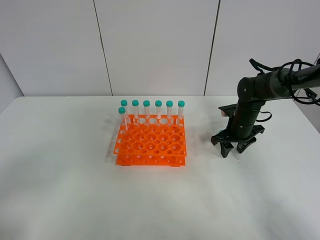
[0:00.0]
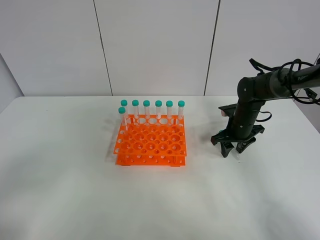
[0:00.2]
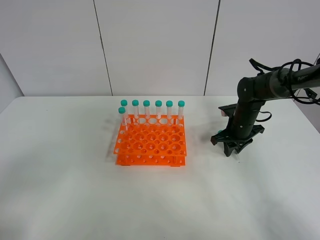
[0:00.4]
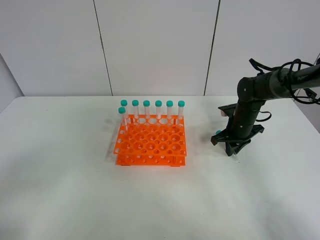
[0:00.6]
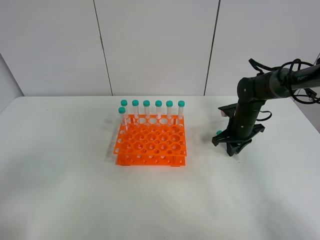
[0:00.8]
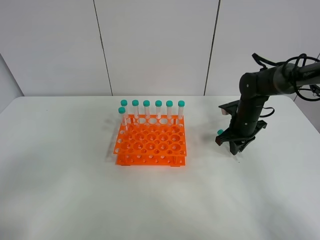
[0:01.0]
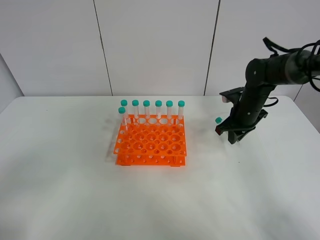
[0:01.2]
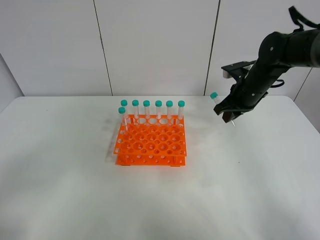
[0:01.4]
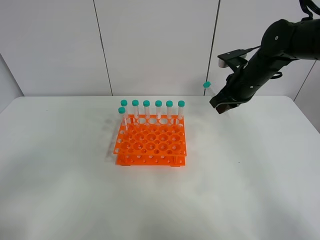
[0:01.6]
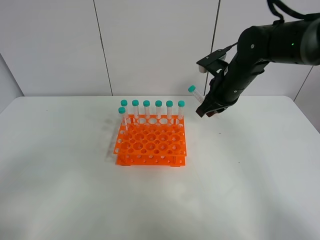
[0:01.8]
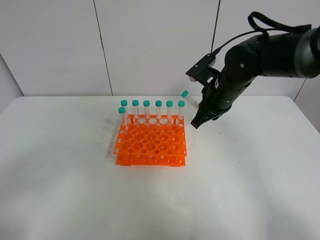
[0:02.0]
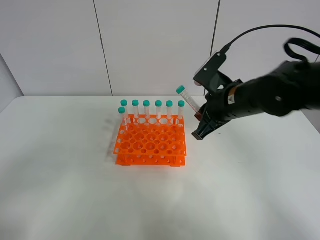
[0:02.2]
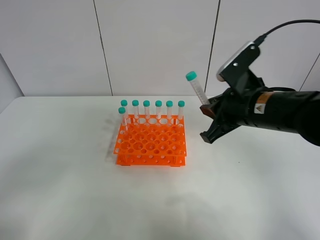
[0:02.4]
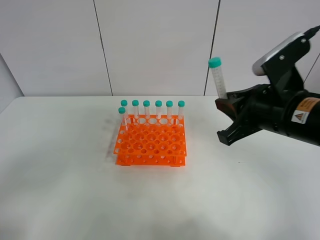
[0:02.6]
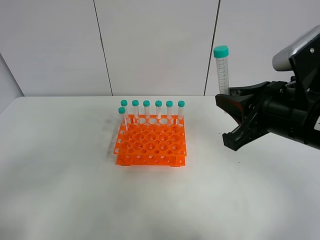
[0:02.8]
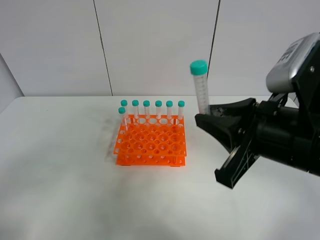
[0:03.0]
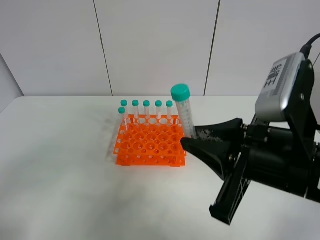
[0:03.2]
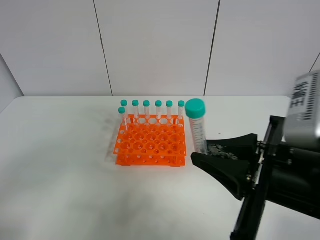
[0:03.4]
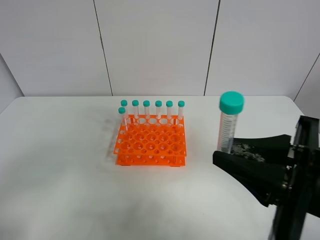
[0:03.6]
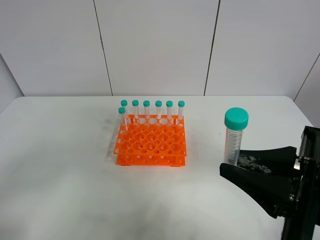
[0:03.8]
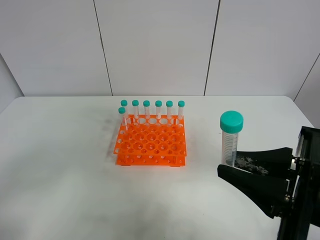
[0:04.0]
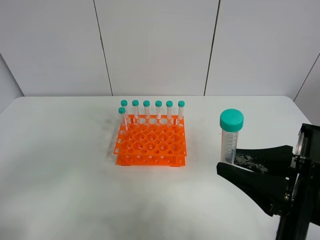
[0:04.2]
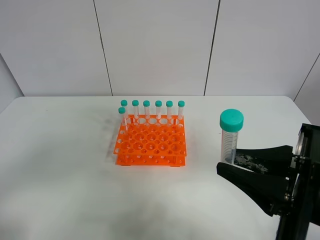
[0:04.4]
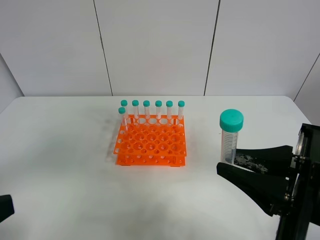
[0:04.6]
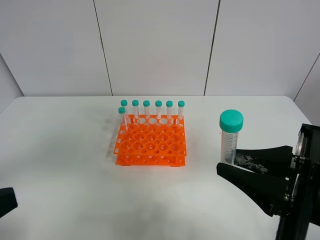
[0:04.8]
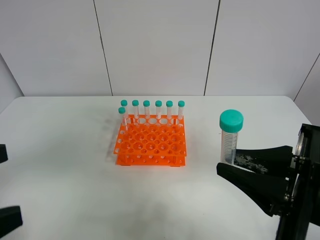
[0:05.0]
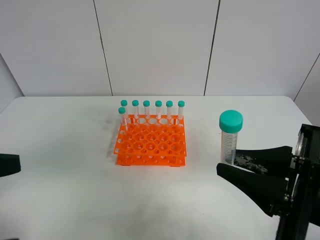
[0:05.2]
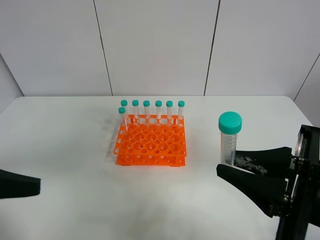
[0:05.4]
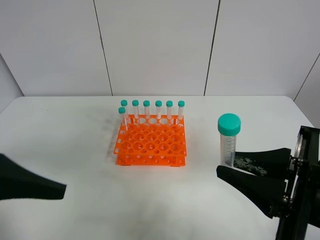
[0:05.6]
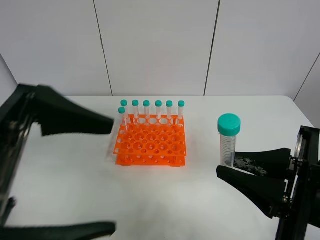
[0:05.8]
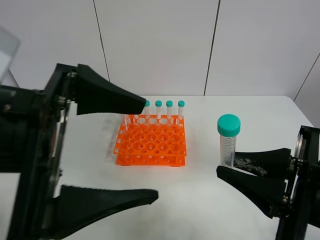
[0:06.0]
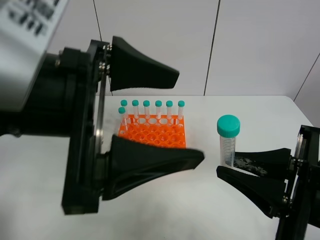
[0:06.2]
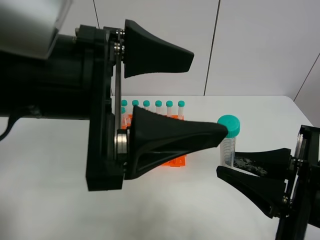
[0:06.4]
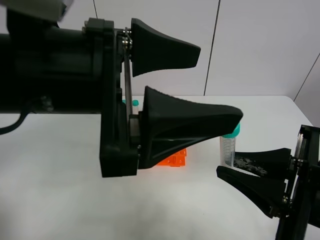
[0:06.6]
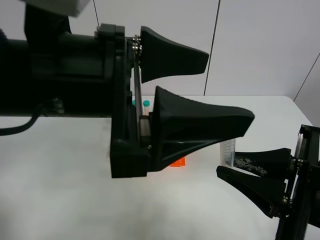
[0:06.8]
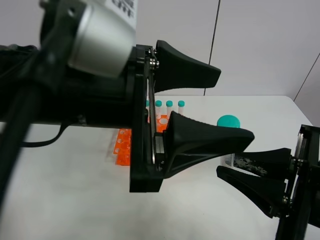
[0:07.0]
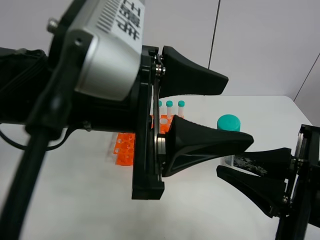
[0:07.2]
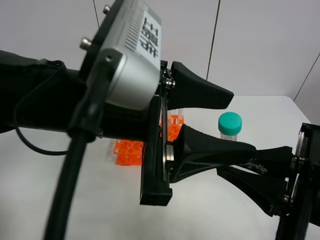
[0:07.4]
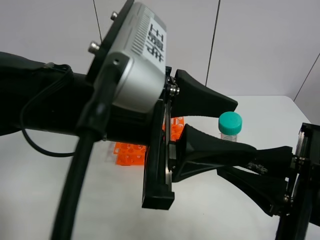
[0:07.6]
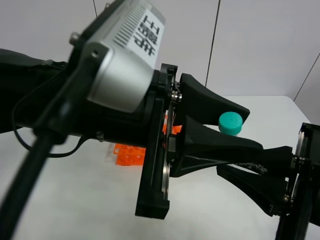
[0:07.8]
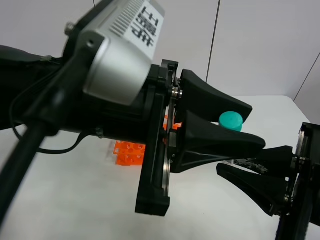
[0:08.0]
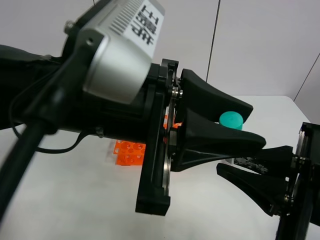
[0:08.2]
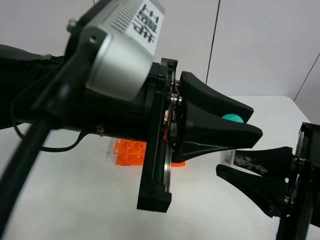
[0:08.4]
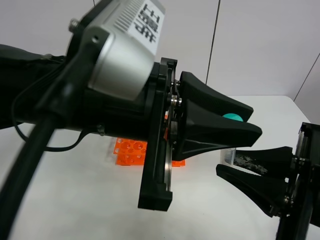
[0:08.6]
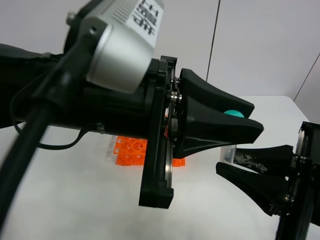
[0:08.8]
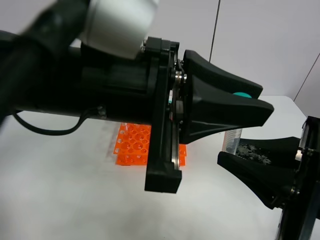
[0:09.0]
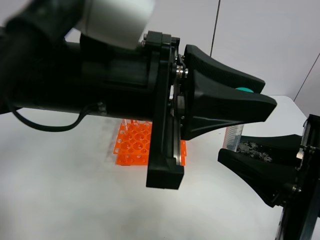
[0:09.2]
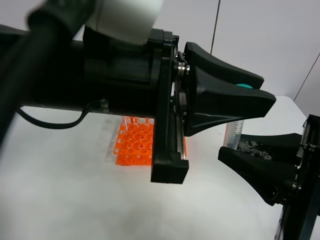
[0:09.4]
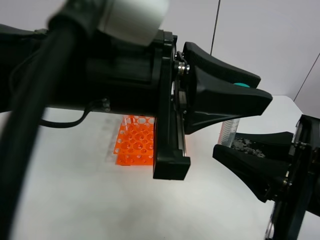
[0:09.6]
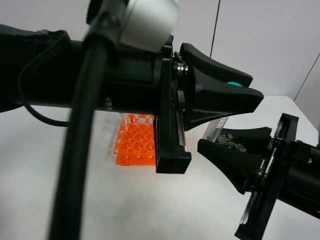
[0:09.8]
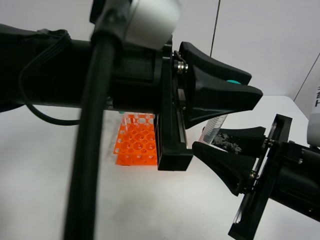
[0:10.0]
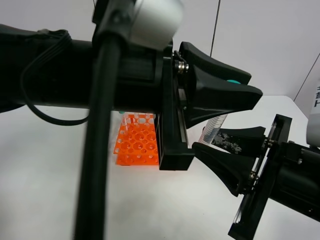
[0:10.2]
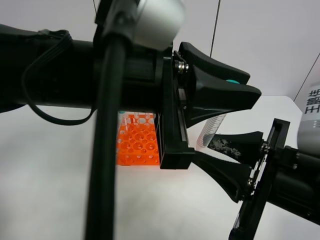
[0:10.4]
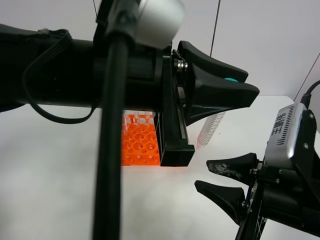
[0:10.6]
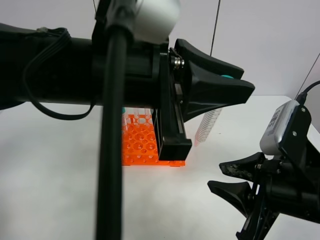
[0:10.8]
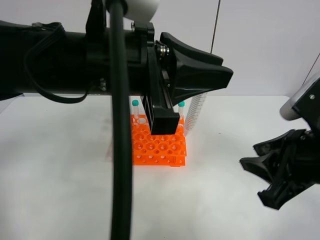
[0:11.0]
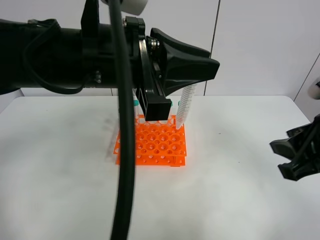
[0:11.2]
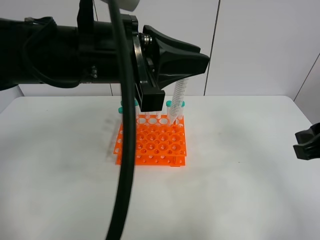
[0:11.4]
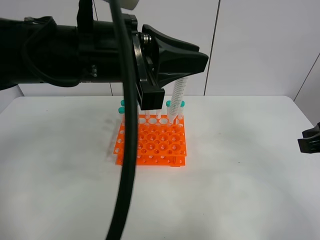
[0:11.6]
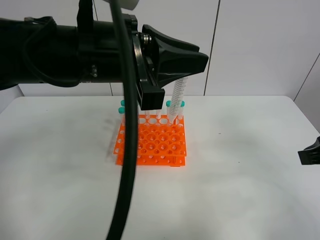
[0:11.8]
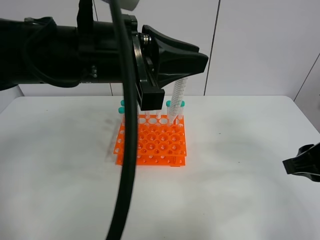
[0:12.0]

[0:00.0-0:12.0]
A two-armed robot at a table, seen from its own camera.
Task of the whole recording: Put the test tube on the table back onto the test tube rack.
Step, 0:01.4 to 0:10.8: Move the test tube from the right gripper to the left gripper.
0:00.0 to 0:01.6: The right gripper shifts about 15 cm upward, and closes up.
0:01.6 to 0:03.0: The right gripper goes roughly 25 cm backward.
0:03.0 to 0:04.4: The right gripper shifts approximately 5 cm backward.
0:04.4 to 0:06.0: The left gripper is displaced to the right and forward by some 15 cm.
0:06.0 to 0:07.6: The left gripper heads to the right and forward, covering roughly 10 cm, and closes up.
0:07.6 to 0:09.0: The left gripper closes.
0:09.0 to 0:10.4: The right gripper opens.
0:10.4 to 0:12.0: The right gripper moves to the right and forward, approximately 10 cm. Meanwhile the left gripper moves approximately 5 cm.

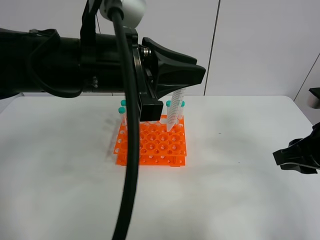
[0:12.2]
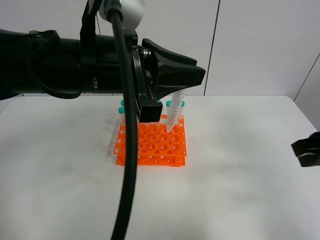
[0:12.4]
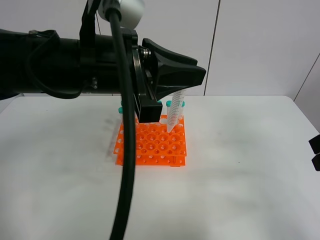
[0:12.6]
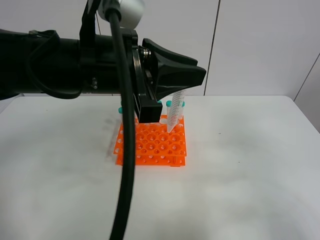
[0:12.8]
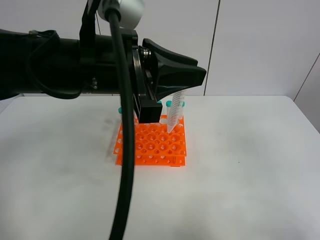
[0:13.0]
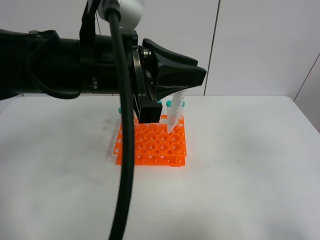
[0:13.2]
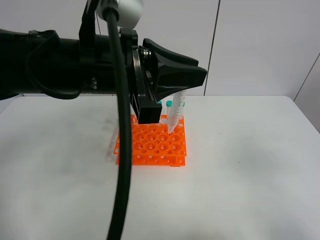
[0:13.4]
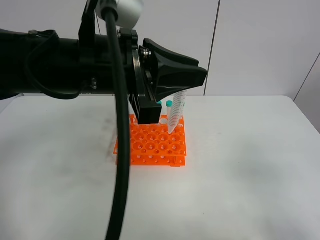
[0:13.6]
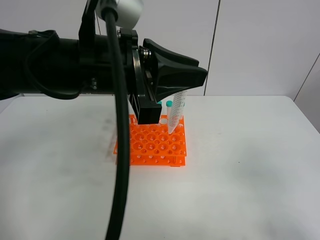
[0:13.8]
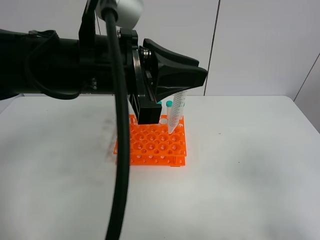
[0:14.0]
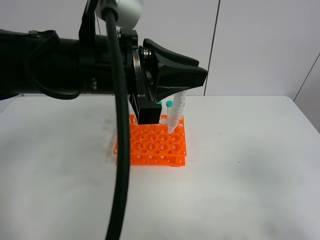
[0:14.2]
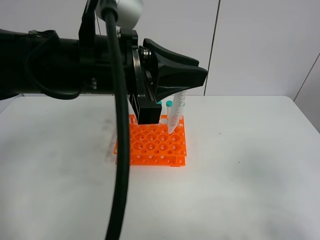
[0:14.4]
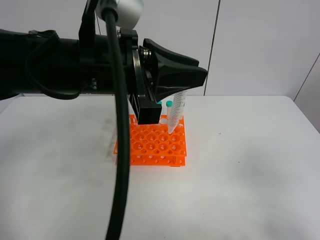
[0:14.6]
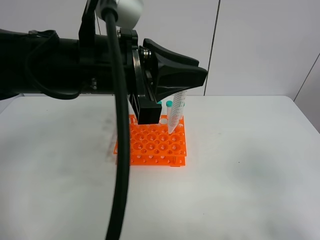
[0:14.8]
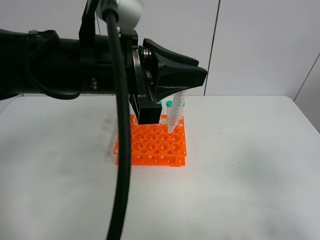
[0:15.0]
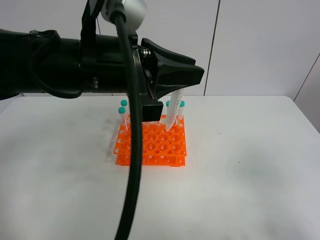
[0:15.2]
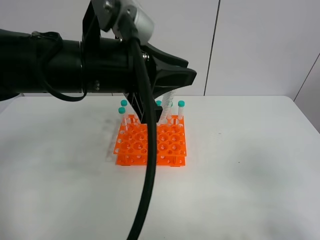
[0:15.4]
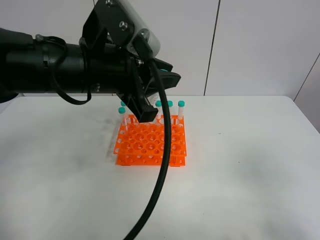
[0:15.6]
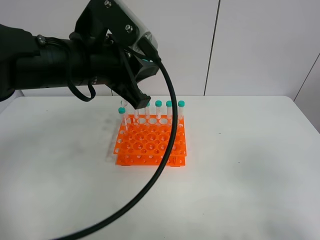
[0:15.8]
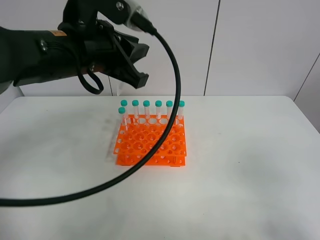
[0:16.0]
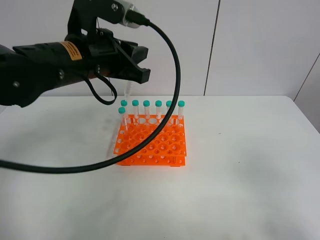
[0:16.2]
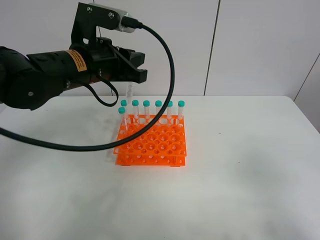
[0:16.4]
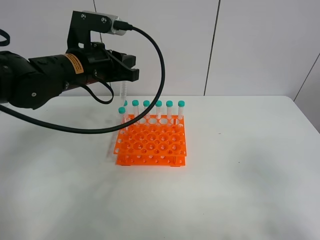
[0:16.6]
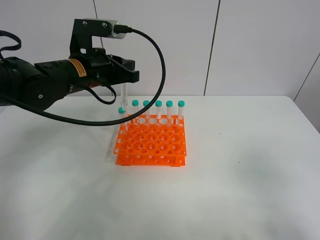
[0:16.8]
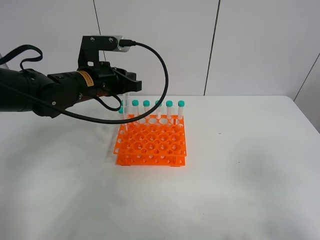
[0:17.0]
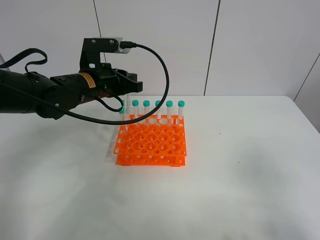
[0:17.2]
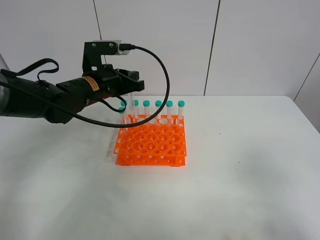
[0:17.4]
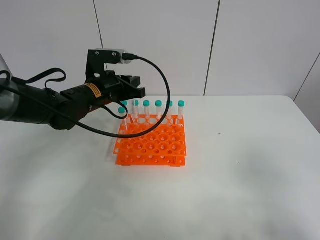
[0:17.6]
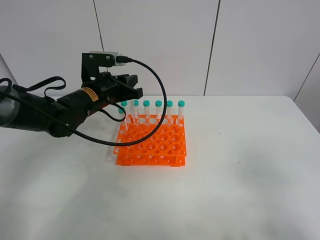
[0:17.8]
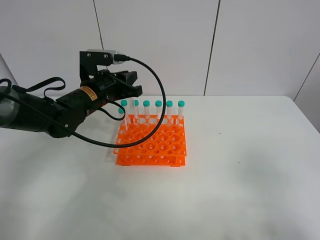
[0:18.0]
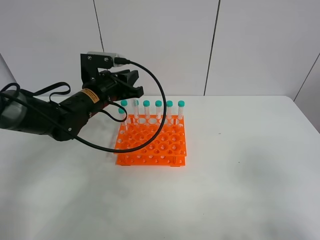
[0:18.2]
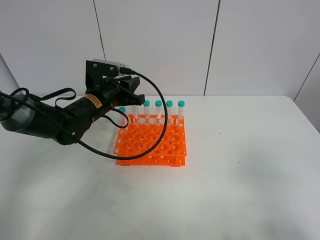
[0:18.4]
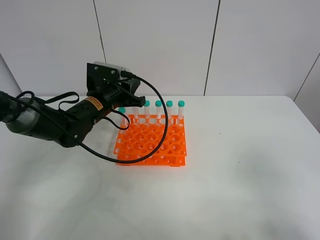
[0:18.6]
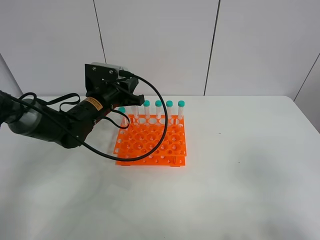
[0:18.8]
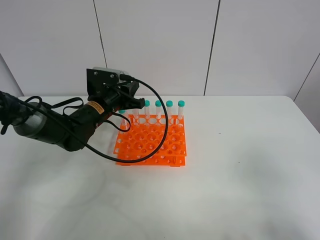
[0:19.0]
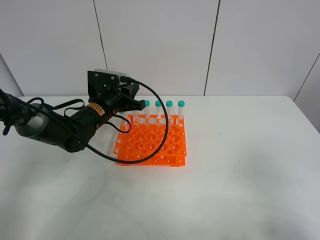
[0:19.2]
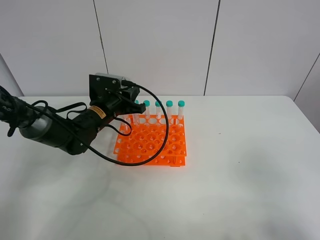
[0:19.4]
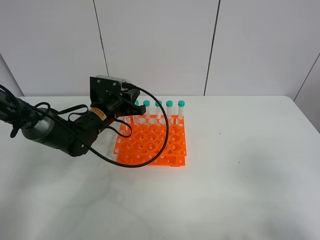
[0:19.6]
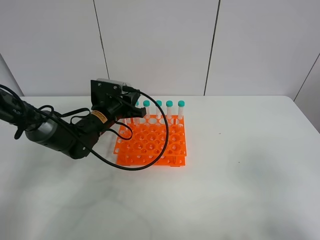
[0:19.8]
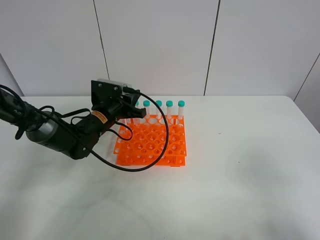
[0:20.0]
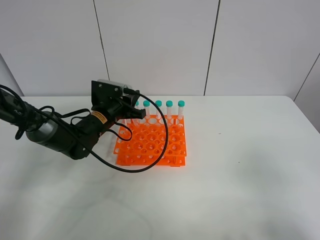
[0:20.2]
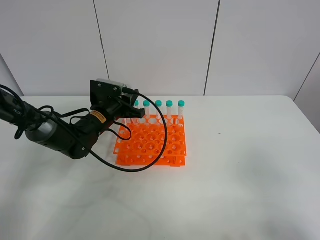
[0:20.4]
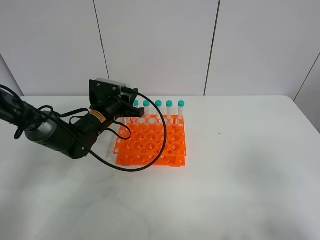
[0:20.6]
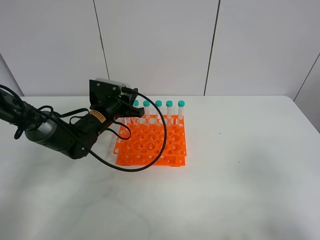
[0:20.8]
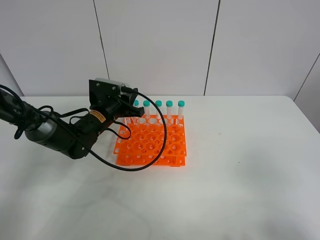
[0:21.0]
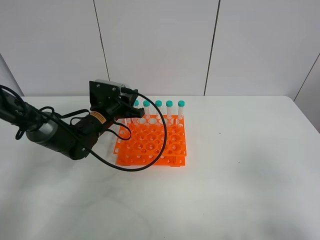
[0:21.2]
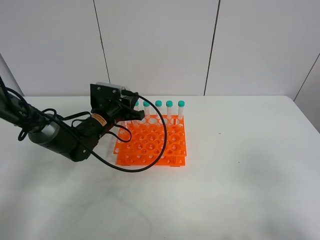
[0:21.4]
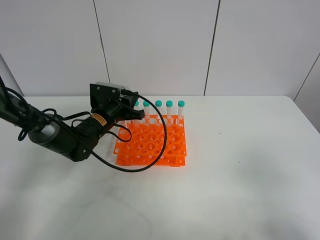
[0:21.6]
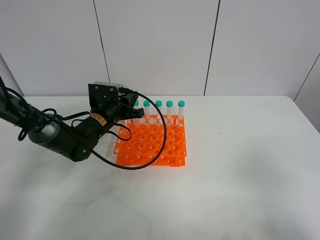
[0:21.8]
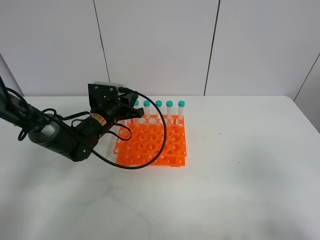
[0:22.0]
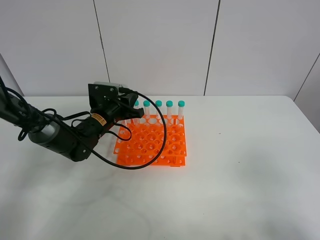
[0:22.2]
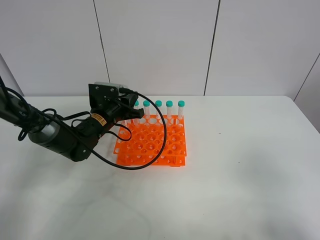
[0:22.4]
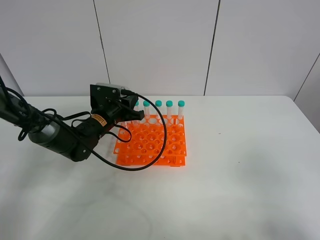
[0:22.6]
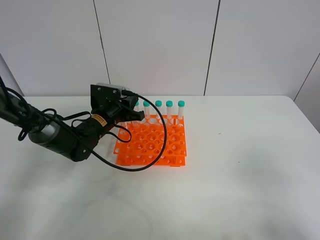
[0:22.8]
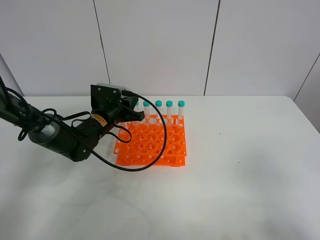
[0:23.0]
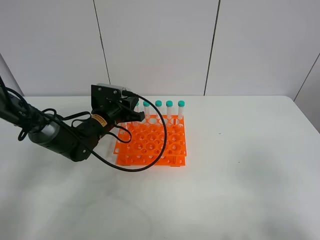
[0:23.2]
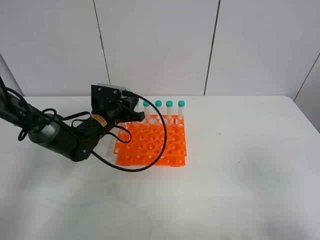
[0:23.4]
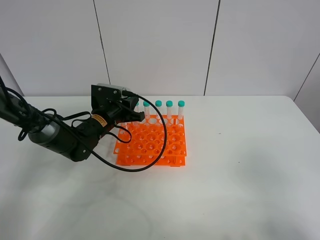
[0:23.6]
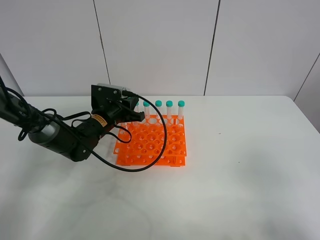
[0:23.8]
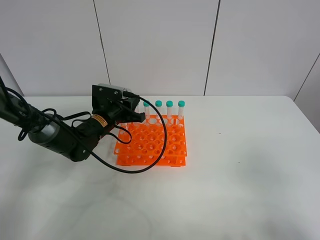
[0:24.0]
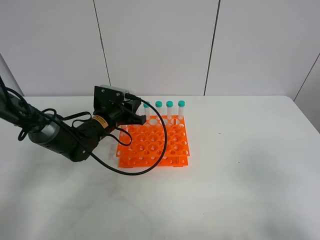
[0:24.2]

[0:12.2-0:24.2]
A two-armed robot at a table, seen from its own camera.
Task of the whole recording: Put the test tube on the table back onto the test tube rack.
0:12.2 to 0:13.8: The right gripper goes about 15 cm backward.
0:13.8 to 0:15.2: The grippers move only a little.
0:15.2 to 0:16.6: The left gripper shifts approximately 15 cm forward, to the left and downward.
0:16.6 to 0:18.2: The left gripper goes some 10 cm downward.
0:18.2 to 0:19.8: The left gripper shifts about 5 cm downward.
0:19.8 to 0:22.6: Both grippers stay put.
0:22.6 to 0:24.2: The two grippers keep their place.
